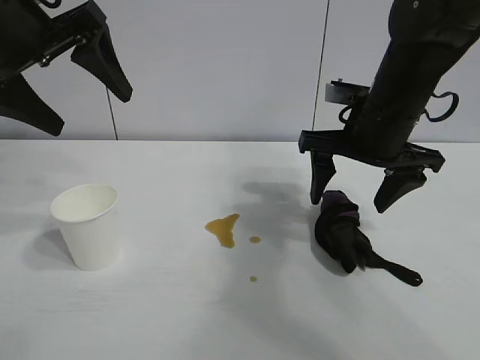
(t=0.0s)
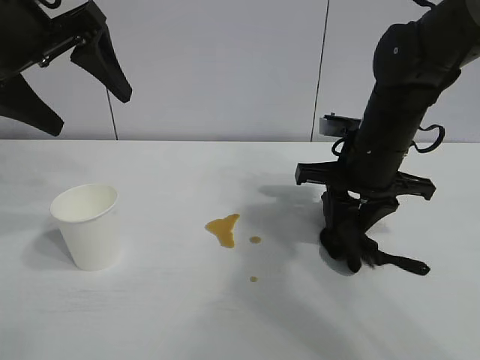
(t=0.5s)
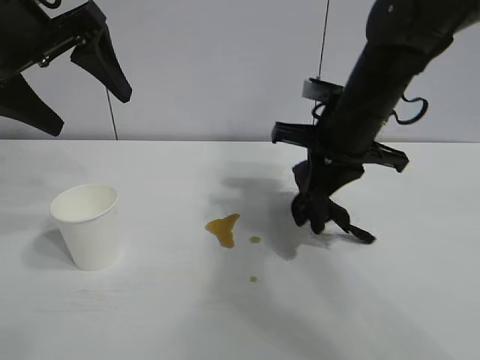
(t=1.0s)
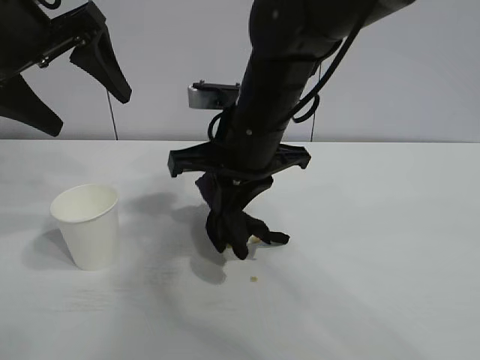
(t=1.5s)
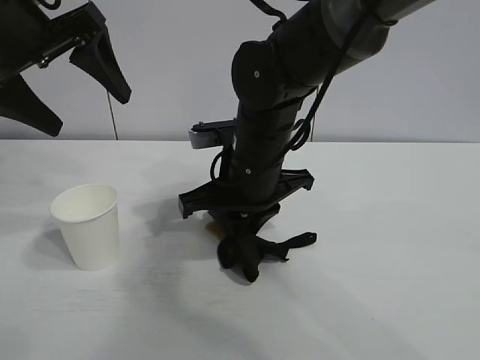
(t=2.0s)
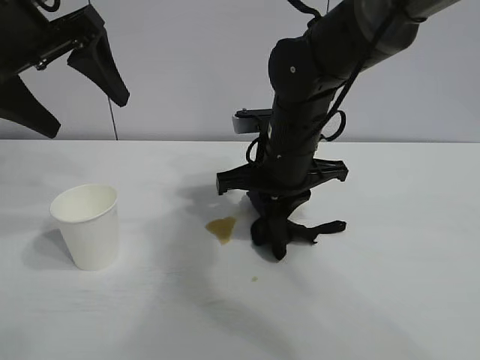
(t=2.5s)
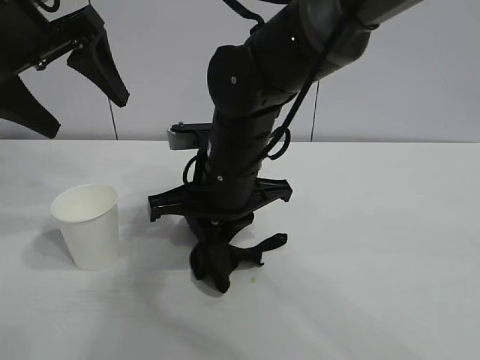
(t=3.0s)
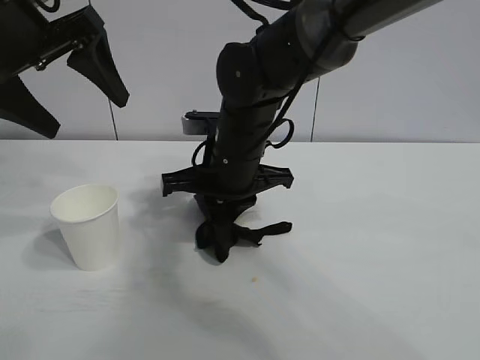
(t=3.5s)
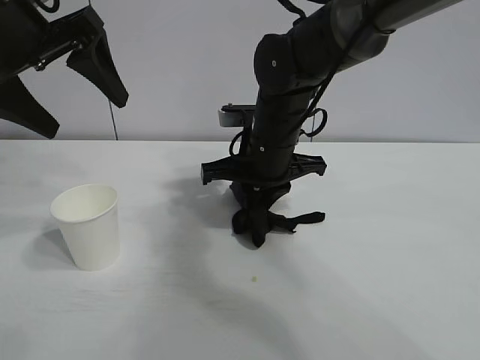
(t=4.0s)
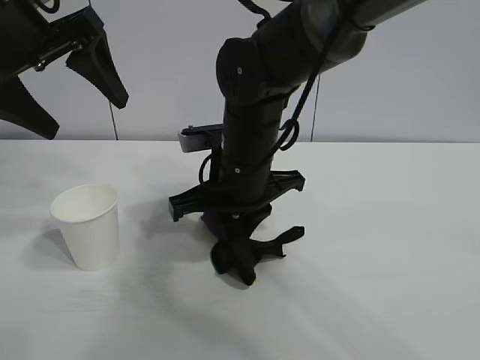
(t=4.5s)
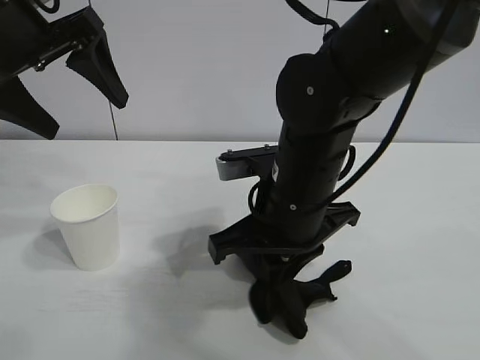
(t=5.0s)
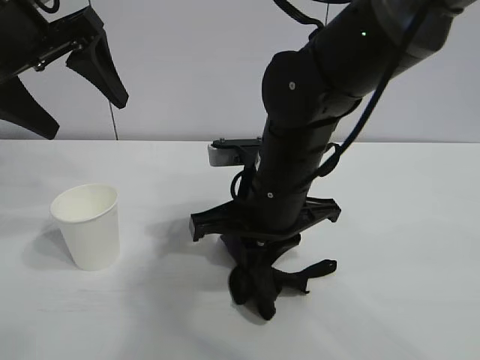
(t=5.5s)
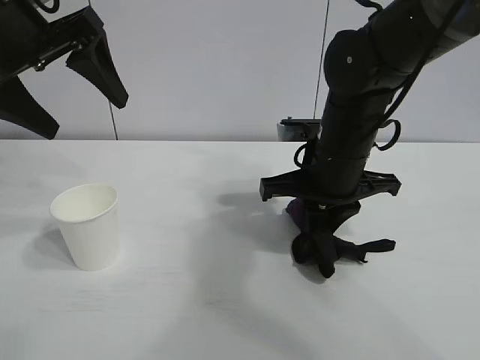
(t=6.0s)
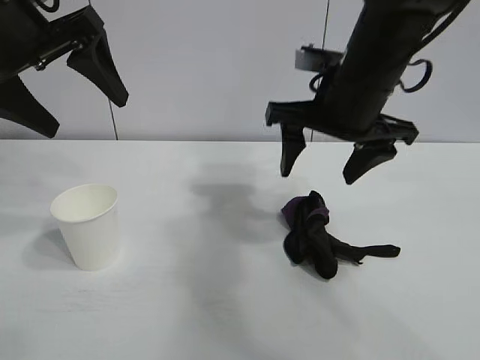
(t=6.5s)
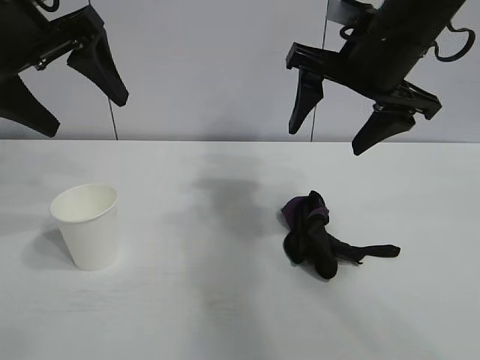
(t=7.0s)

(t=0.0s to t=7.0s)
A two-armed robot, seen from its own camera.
Task of the whole recording: the left gripper pick up the fallen cup and place it upright, the right gripper grasp the black rag and wipe the stain on the table, the right gripper put the black rag back in its original position.
Step, t=1.0s - t=5.5s: Wipe the stains off the table with the rag with right gripper.
